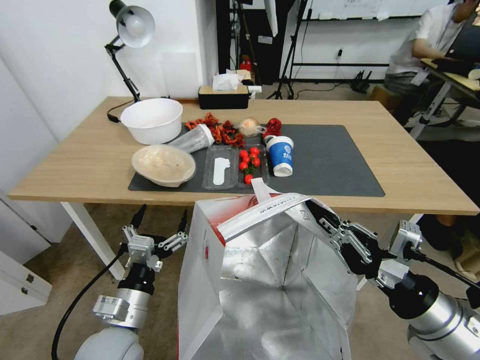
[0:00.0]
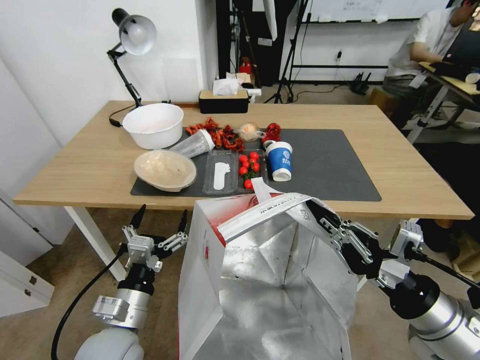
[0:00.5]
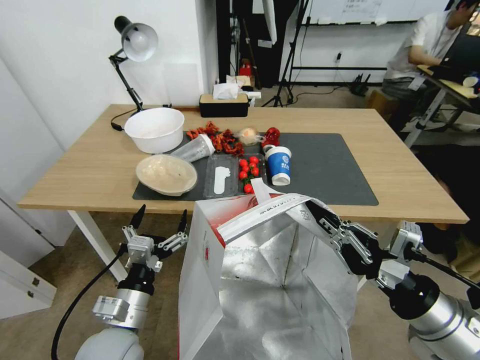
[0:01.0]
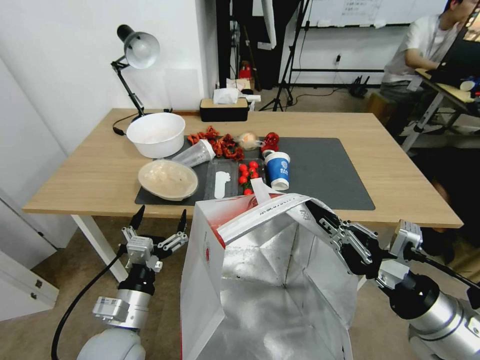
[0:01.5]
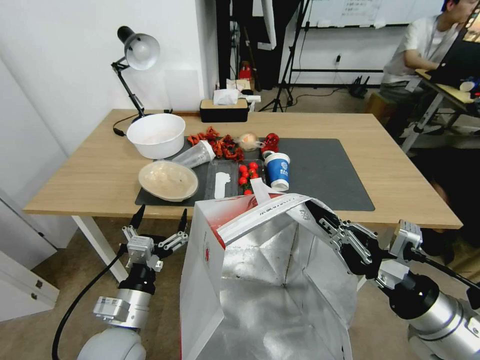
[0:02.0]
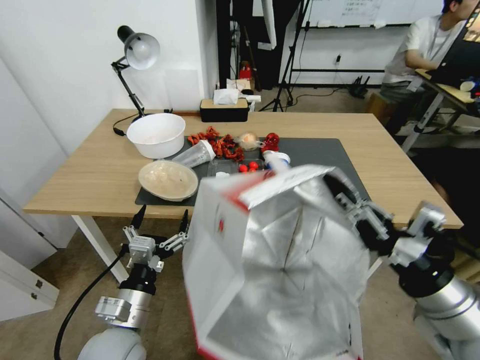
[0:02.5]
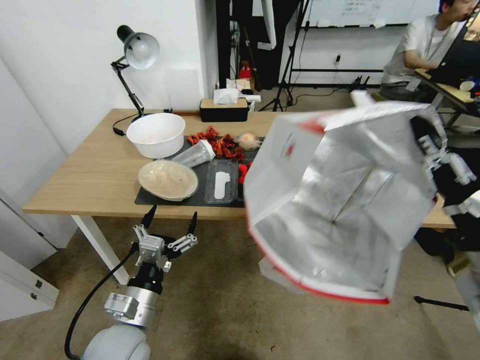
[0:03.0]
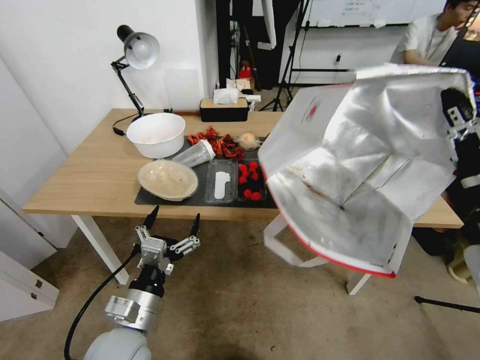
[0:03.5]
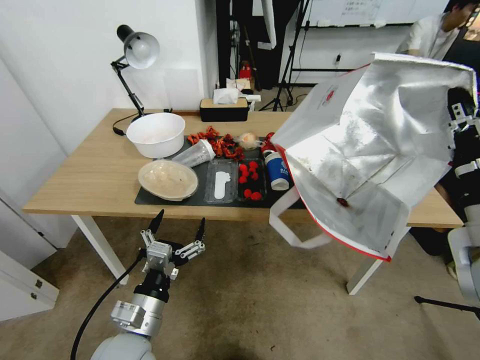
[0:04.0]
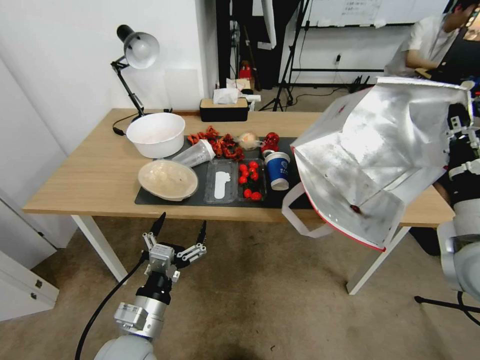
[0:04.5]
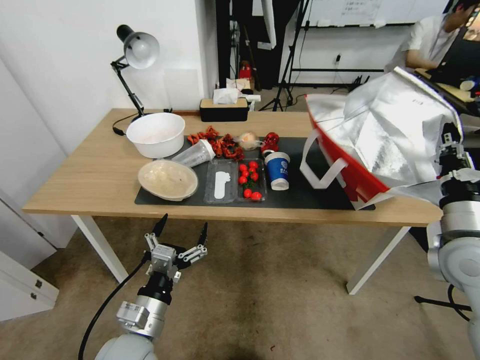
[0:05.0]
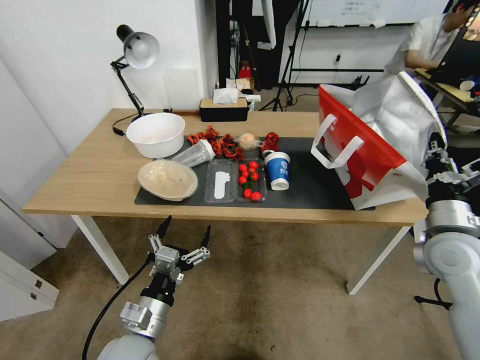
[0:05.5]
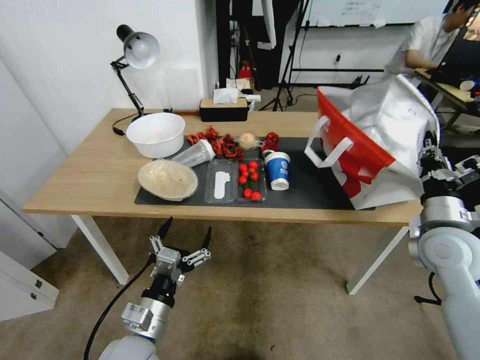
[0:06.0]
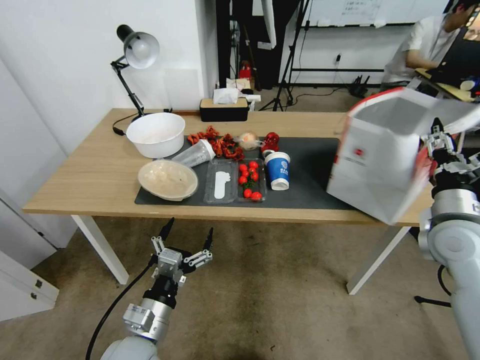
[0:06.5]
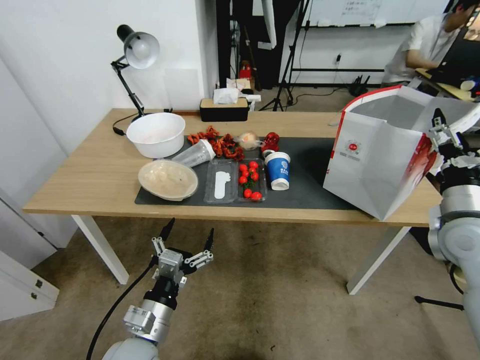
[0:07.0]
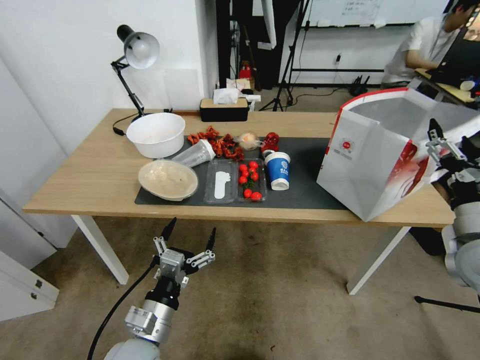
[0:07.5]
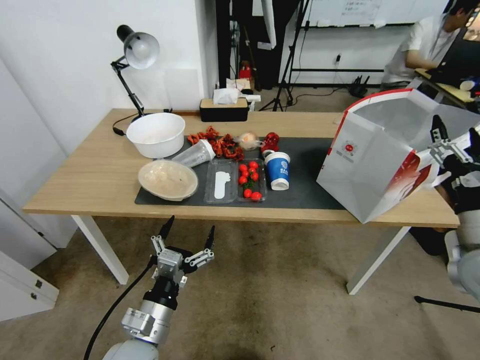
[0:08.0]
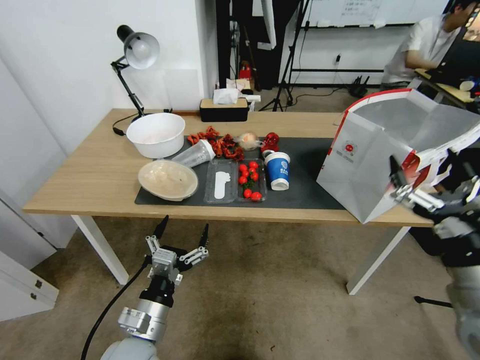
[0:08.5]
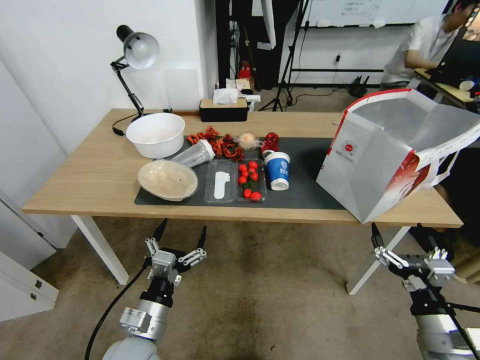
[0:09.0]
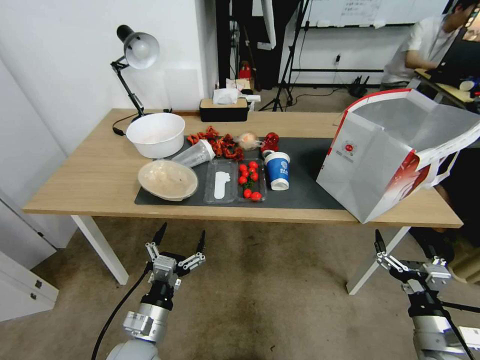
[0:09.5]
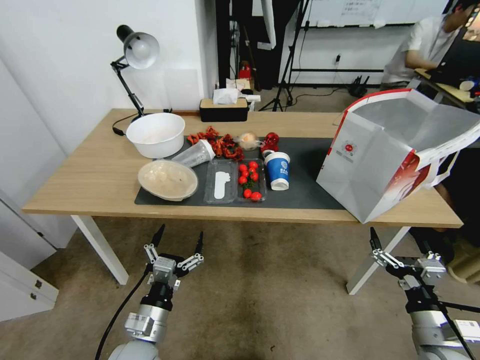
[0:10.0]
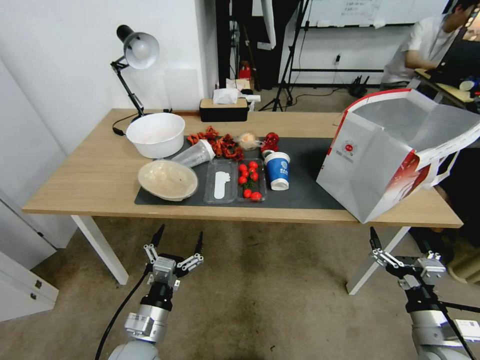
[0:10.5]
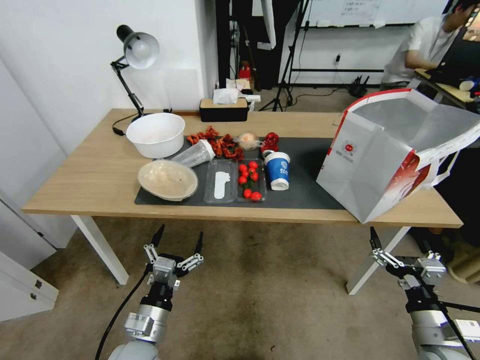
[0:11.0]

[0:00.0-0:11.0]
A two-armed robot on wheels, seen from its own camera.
Task of the whole recording: Pick up the food delivery bag from the floor and place it on the table.
0:02.0 to 0:03.5: The right gripper is displaced upward by approximately 10 cm.
0:03.5 to 0:05.5: The right gripper is displaced downward and forward by about 15 cm.
0:05.5 to 0:07.5: The right gripper opens its fingers.
0:07.5 to 0:09.0: The right gripper moves downward and backward, about 20 cm.
0:09.0 to 0:11.0: The grippers move only a little.

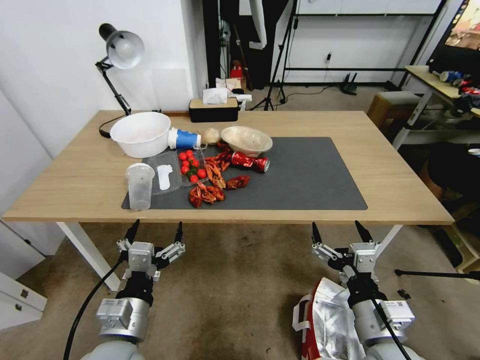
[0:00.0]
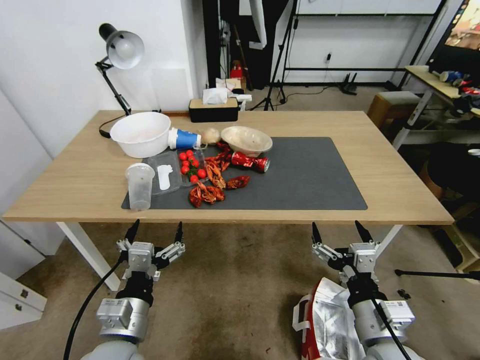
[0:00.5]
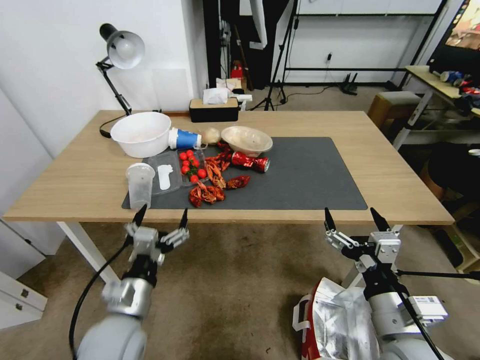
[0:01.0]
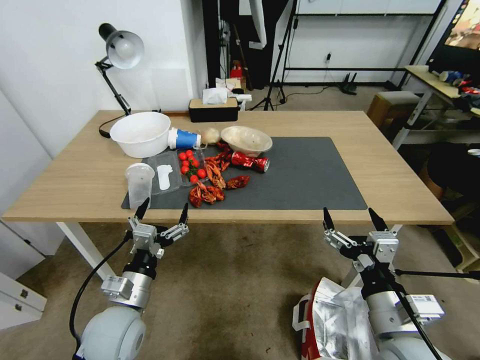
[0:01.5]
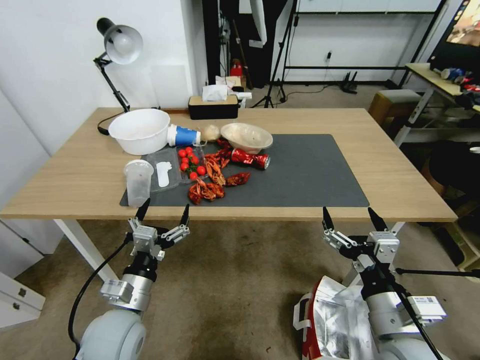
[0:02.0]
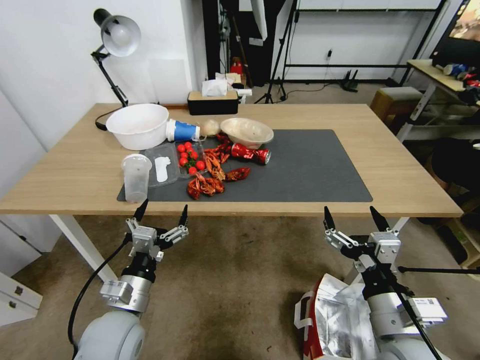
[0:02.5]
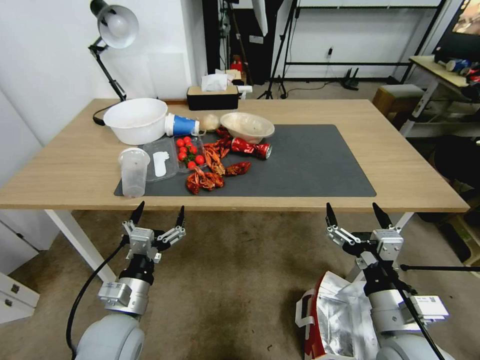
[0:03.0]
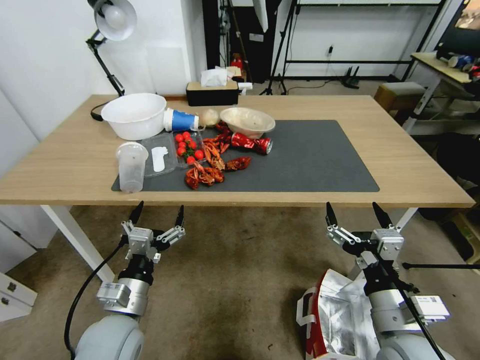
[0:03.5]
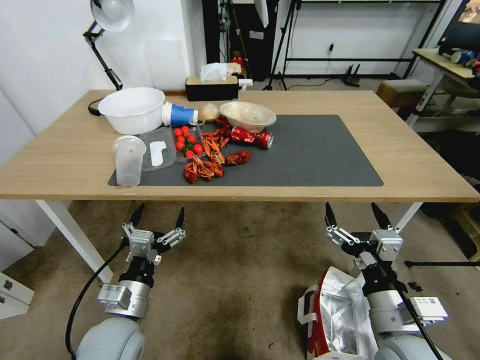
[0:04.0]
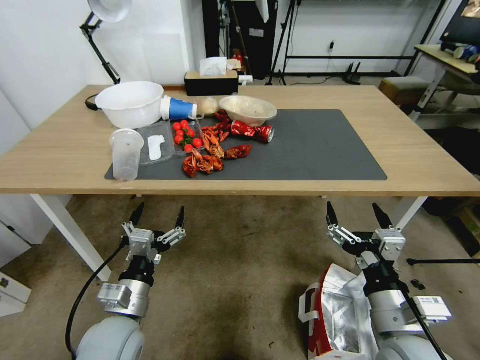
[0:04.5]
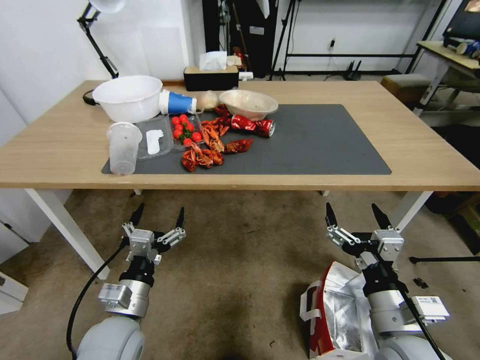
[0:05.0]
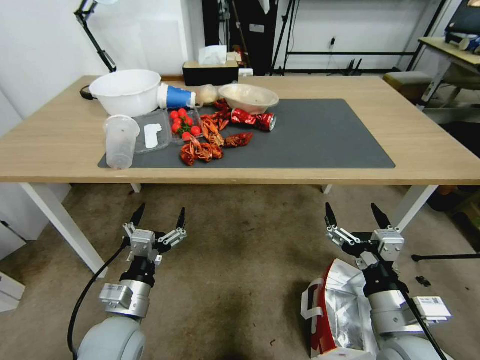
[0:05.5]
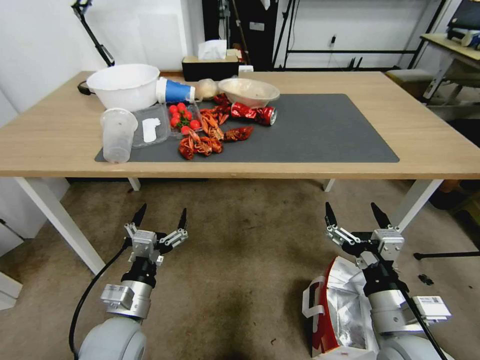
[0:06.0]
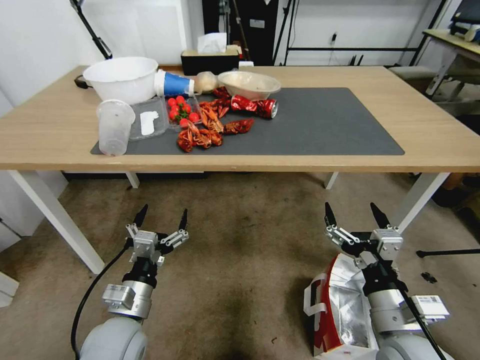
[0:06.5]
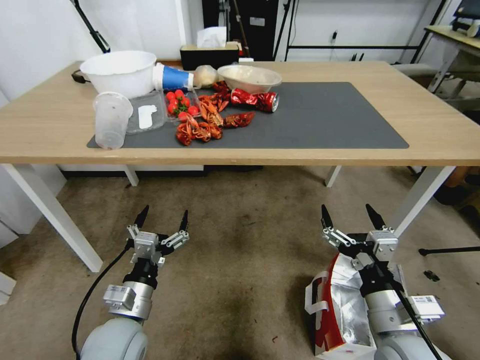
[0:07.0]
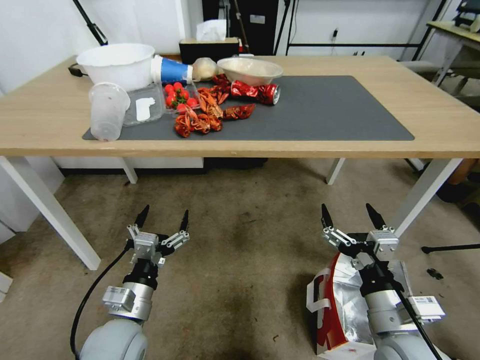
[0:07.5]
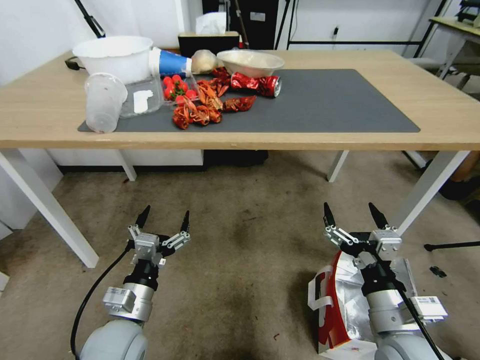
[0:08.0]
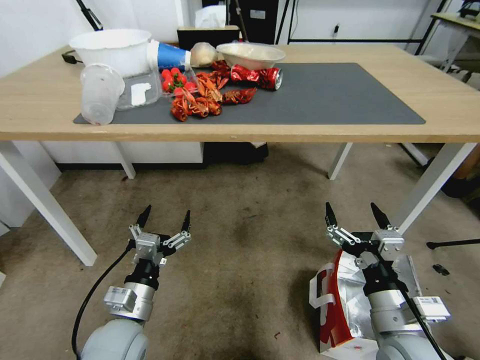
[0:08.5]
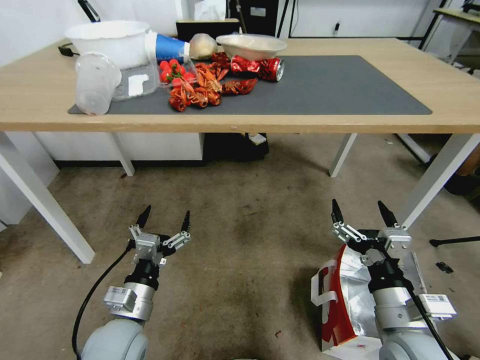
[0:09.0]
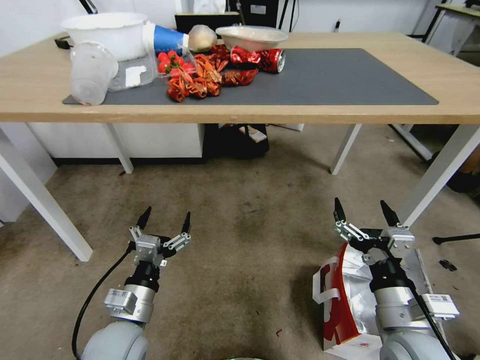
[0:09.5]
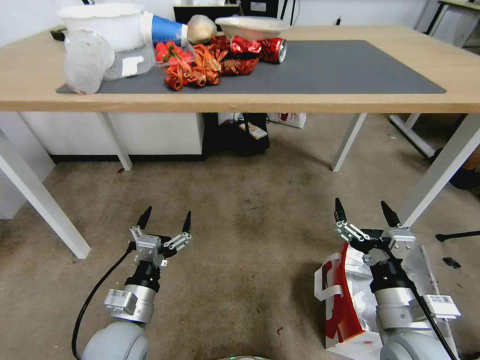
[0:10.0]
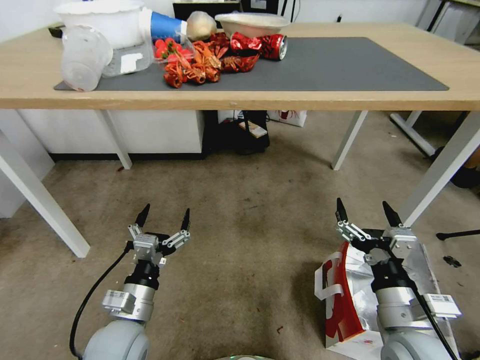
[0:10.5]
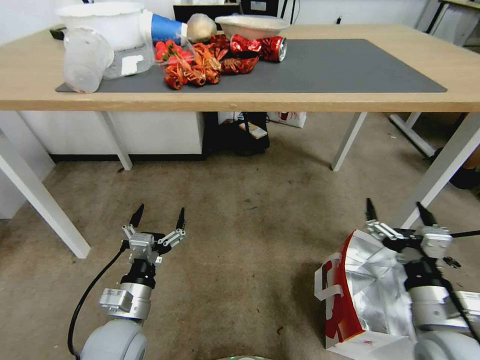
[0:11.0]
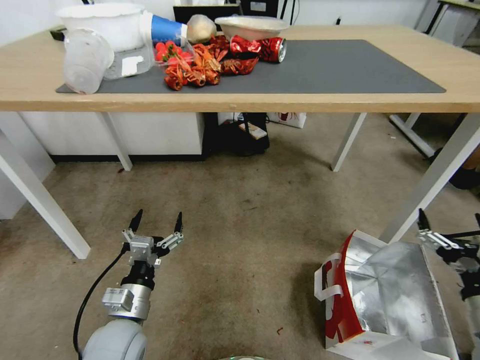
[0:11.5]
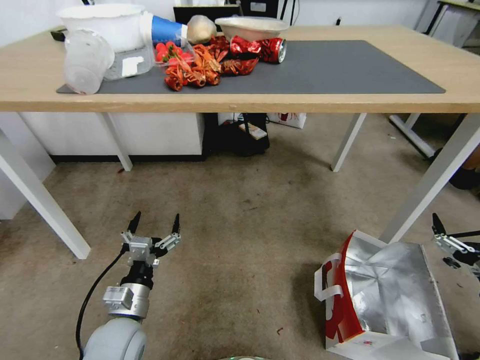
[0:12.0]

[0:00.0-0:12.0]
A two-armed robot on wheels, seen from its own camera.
Task of the whole recording: Pick up the food delivery bag from the floor and place it on the table.
0:10.0 to 0:12.0: The right gripper shifts about 20 cm to the right.

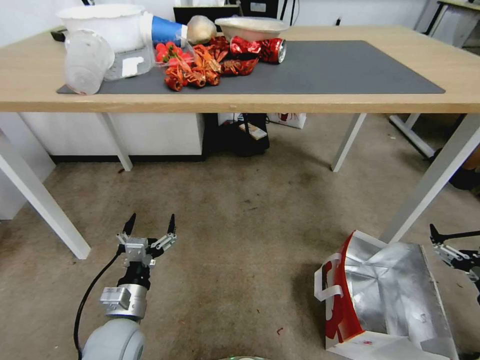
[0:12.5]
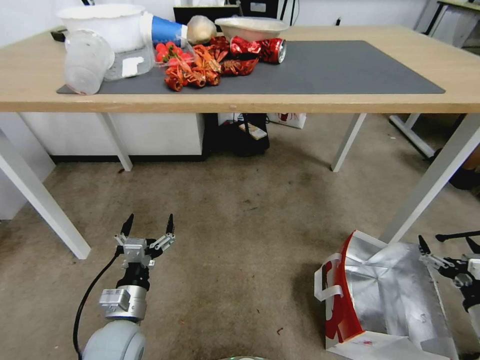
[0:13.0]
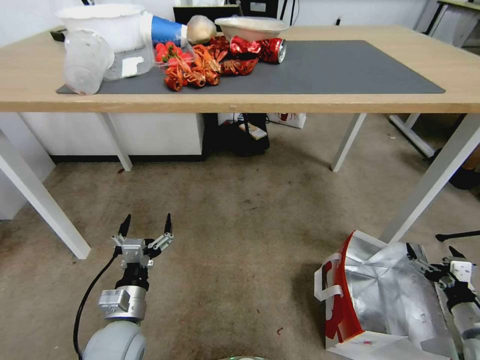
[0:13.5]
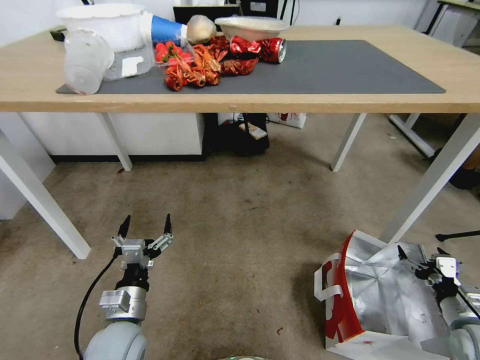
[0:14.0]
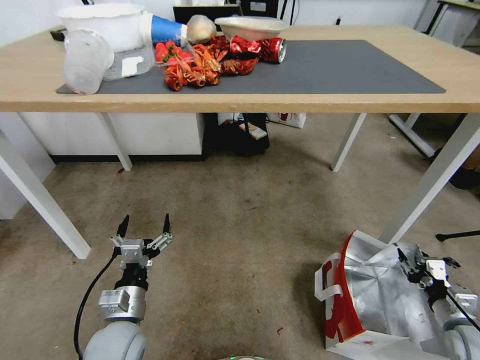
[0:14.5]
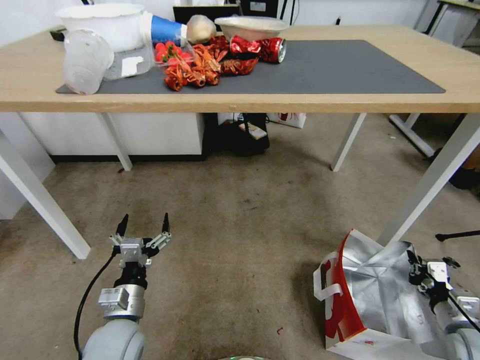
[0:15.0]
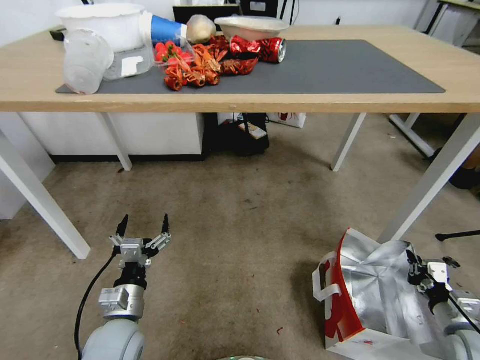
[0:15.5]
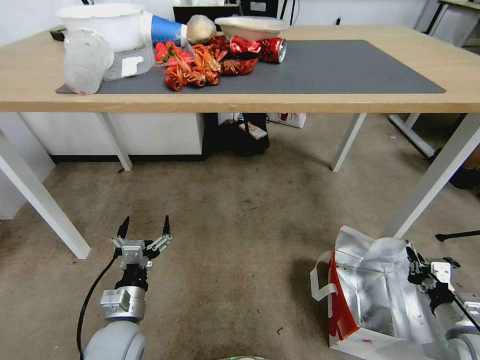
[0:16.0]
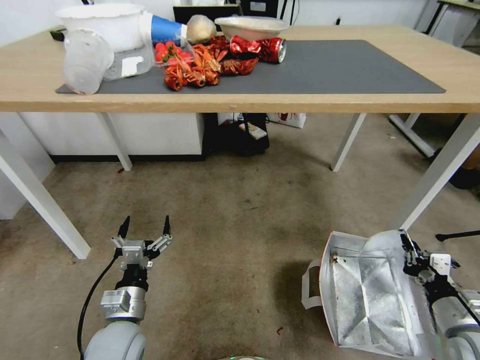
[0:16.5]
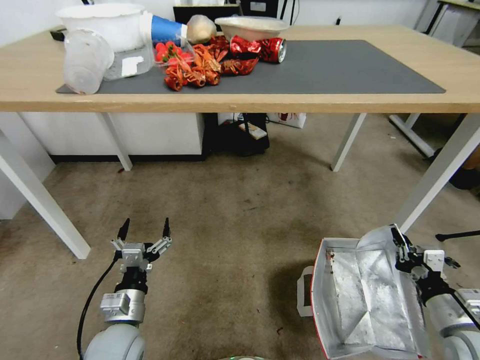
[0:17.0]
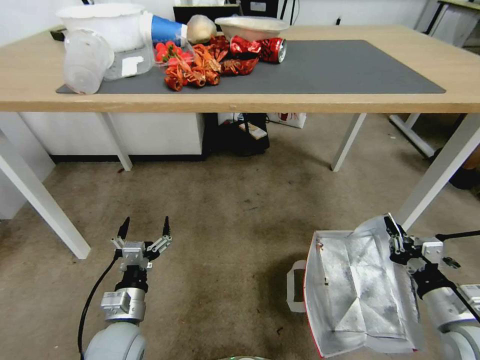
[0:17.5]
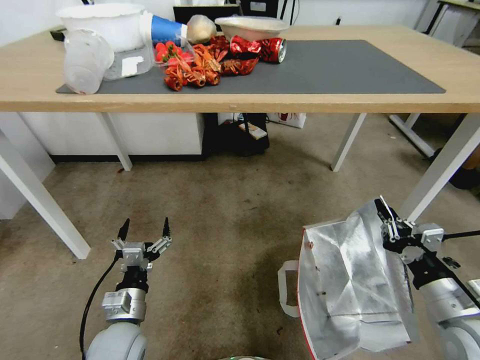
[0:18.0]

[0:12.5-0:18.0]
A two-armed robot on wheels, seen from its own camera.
Task of the whole recording: Pick up the food delivery bag from the floor and place it on the table.
0:12.5 to 0:14.5: The right gripper travels downward by about 10 cm, and closes.
0:14.5 to 0:16.0: The right gripper closes its fingers.
0:16.0 to 0:18.0: The right gripper heads upward and to the left, covering some 15 cm.
